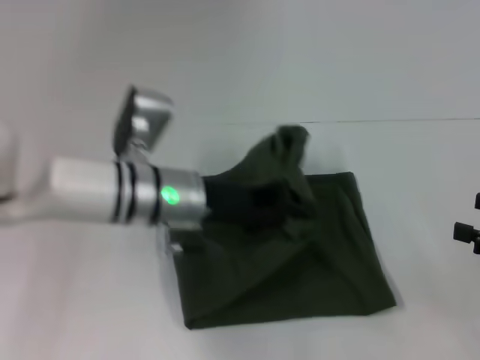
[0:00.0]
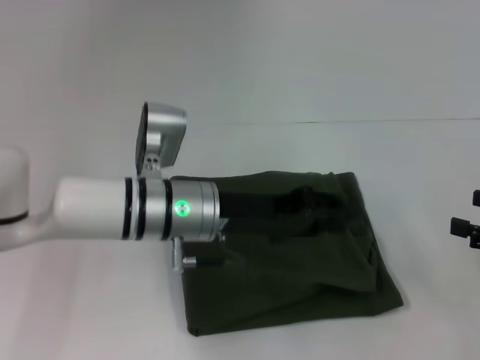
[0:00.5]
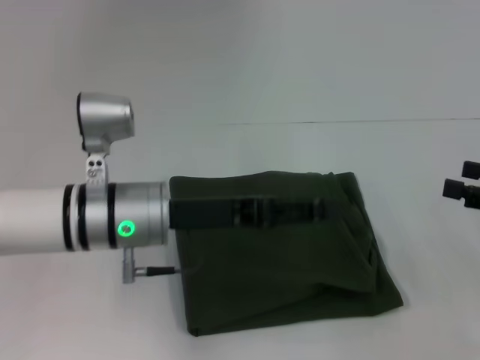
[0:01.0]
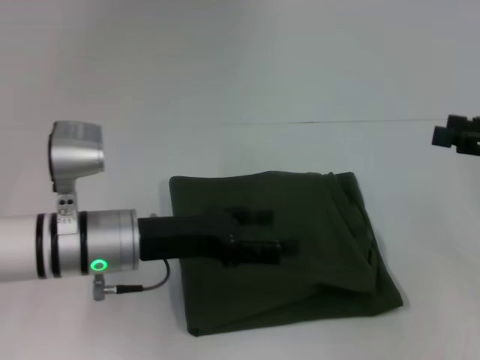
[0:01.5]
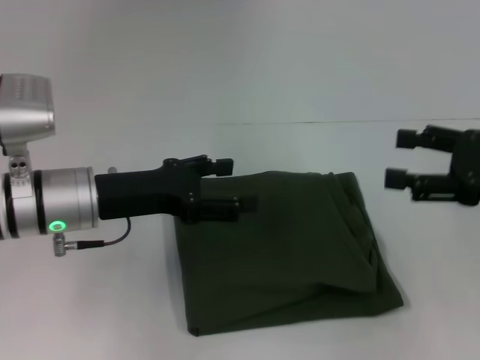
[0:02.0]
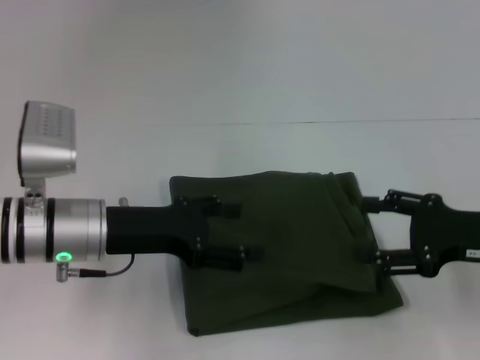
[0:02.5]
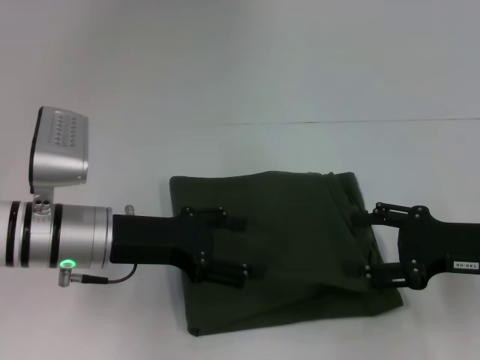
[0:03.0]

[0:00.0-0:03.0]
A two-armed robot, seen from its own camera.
0:00.0 to 0:01.5: The right gripper heads upward and forward, covering approximately 10 cm, while the left gripper heads to the left, covering roughly 5 cm, and opens.
0:01.5 to 0:03.0: The right gripper travels to the left and downward by some 10 cm.

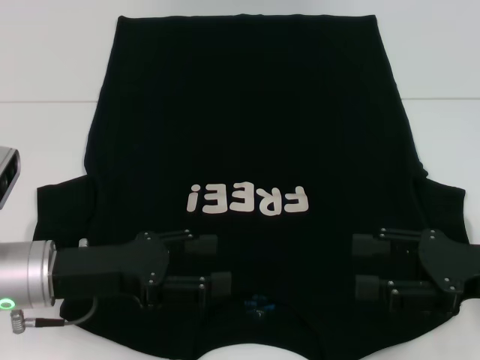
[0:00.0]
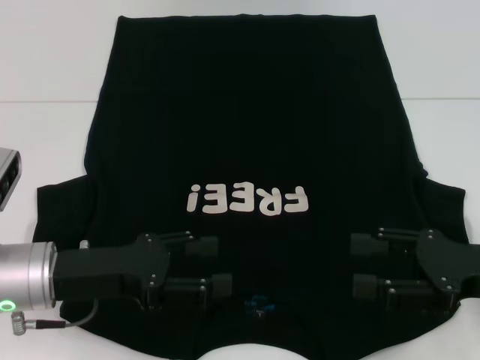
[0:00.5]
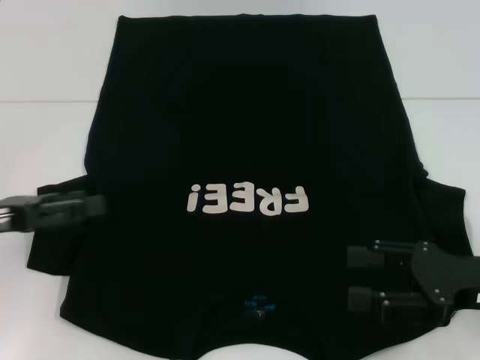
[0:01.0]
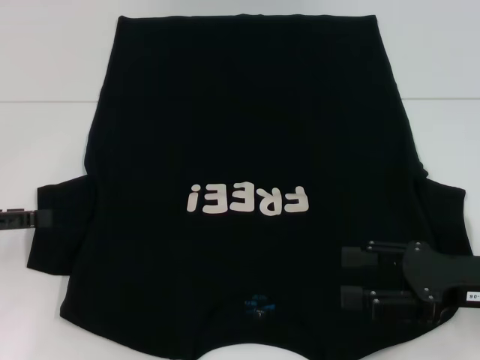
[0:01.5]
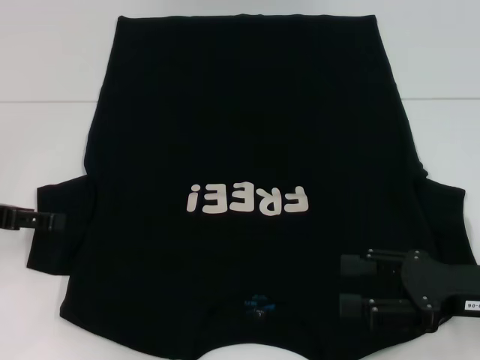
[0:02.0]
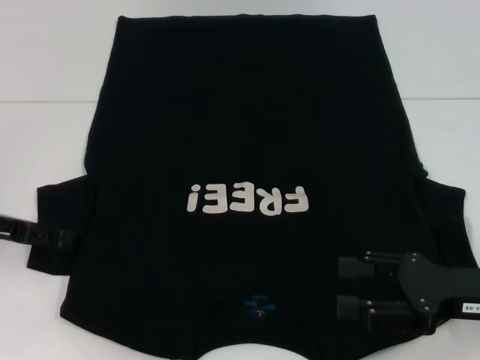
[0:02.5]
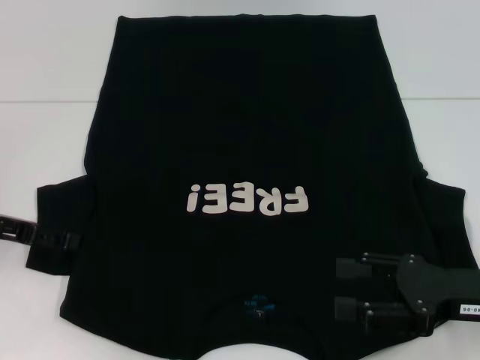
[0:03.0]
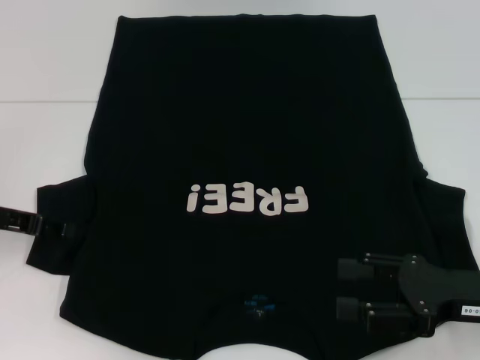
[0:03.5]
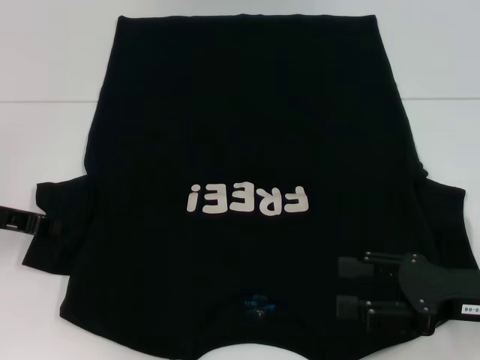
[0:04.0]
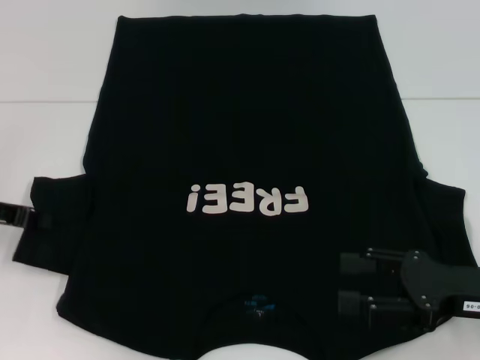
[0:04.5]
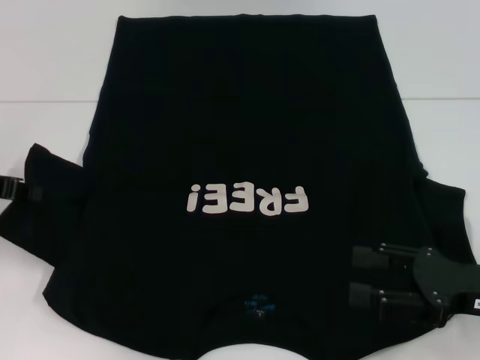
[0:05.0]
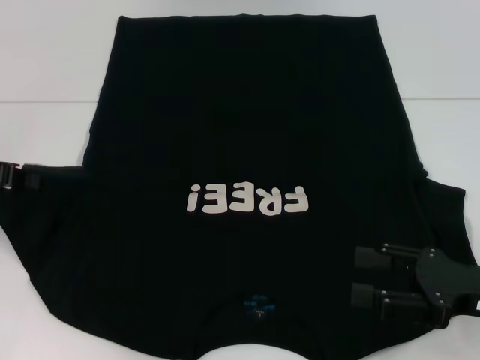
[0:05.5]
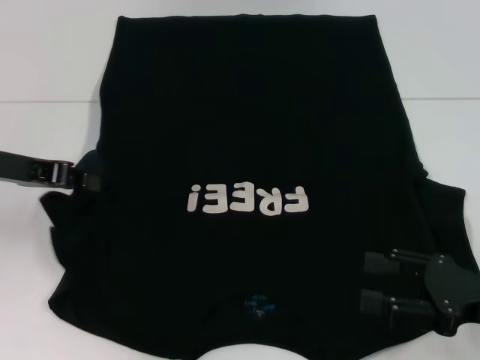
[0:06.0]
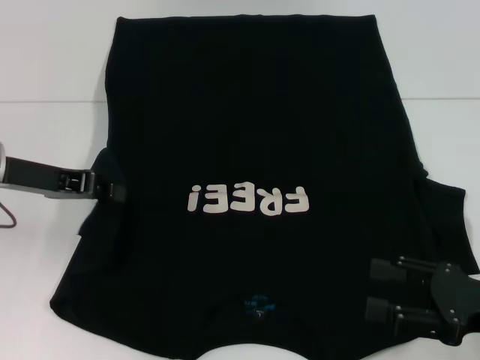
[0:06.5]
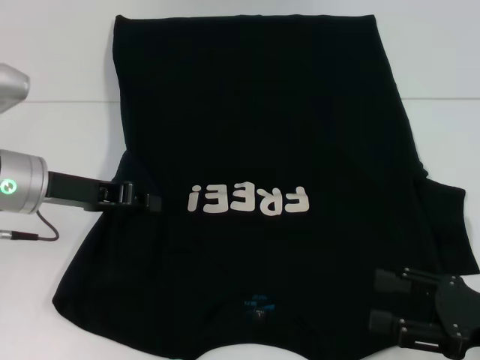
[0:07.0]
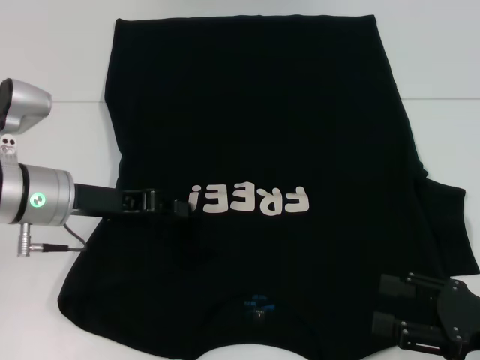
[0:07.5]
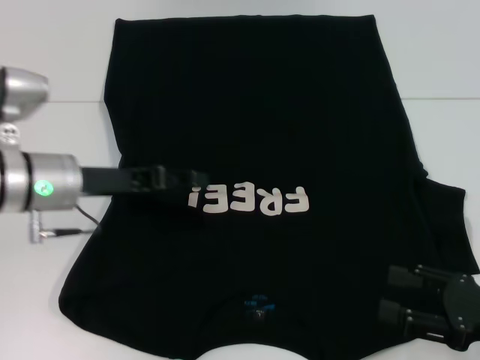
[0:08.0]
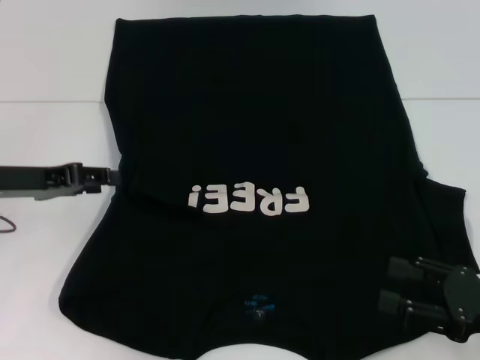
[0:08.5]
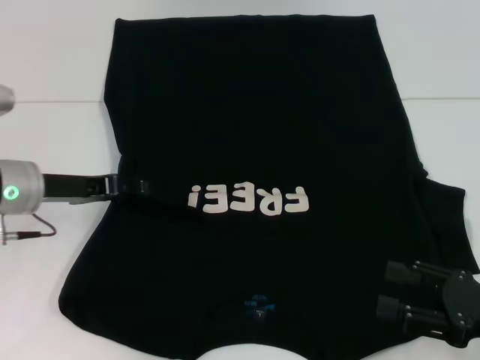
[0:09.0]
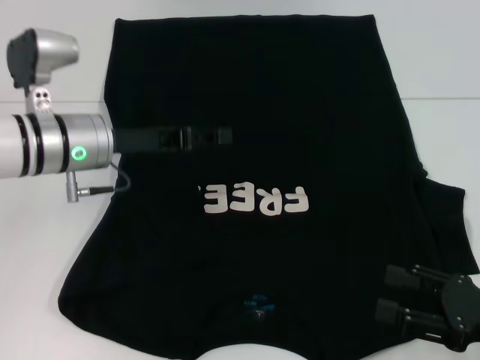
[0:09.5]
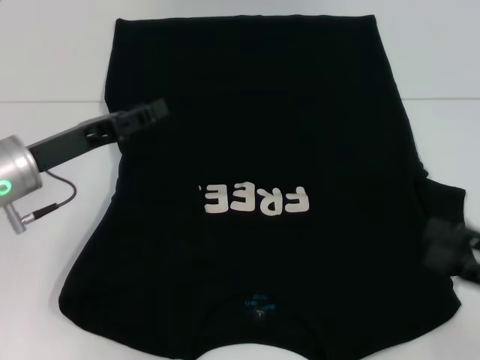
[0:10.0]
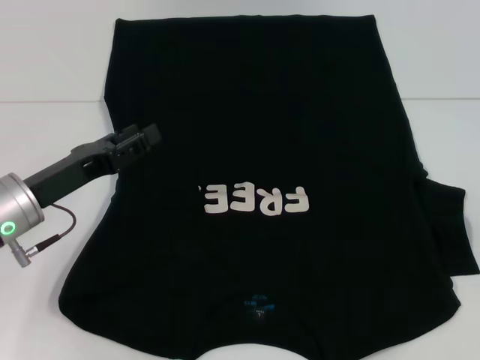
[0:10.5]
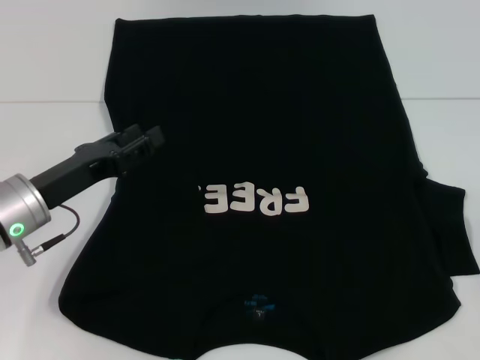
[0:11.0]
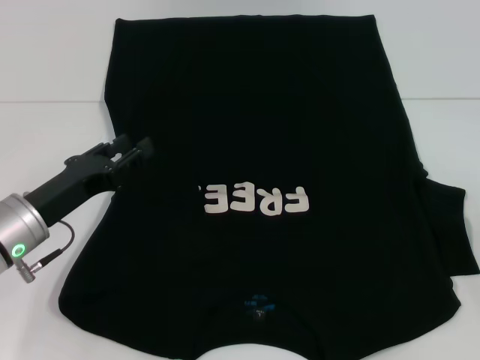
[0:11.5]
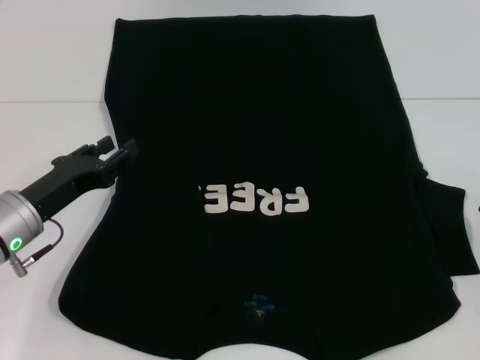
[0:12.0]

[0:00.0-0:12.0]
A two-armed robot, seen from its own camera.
Step, 0:00.0 to 0:07.0: Fold the bottom left sleeve with your left hand.
0:00.0 to 0:02.0: The left gripper goes roughly 15 cm to the left and forward.
0:04.0 to 0:06.0: The left gripper is displaced upward by approximately 5 cm.
0:06.0 to 0:08.0: The left gripper goes approximately 10 cm to the right, and opens up.
0:08.0 to 0:10.0: The left gripper goes left and right, roughly 10 cm each way, reversing 2 times; the right gripper ends up about 5 cm from where it was.
0:10.0 to 0:12.0: The left gripper shifts roughly 5 cm downward. Meanwhile the right gripper moves to the right and forward, approximately 10 cm.

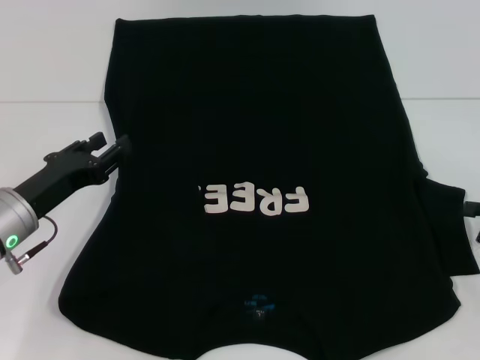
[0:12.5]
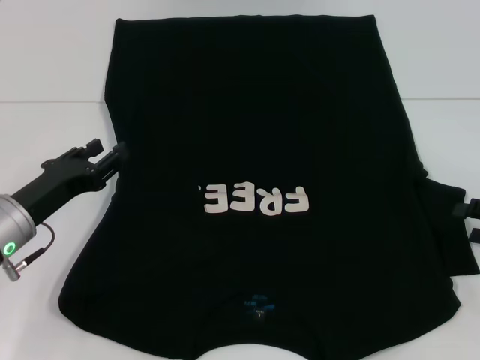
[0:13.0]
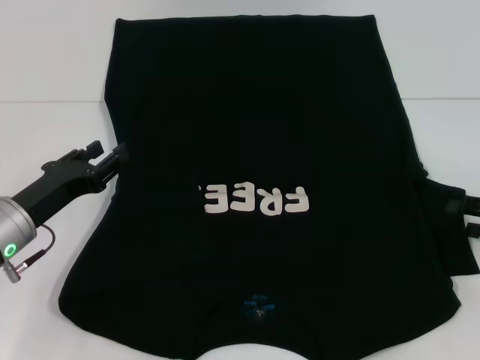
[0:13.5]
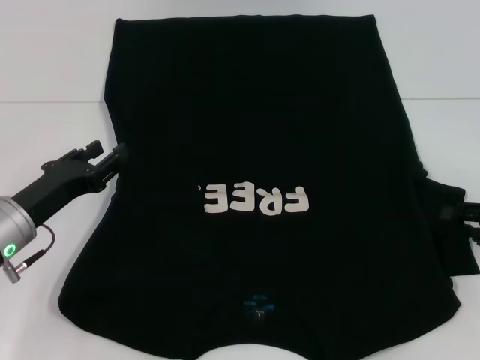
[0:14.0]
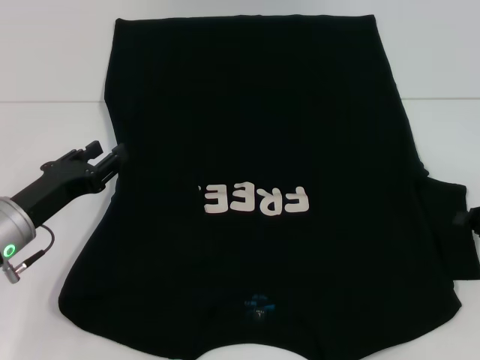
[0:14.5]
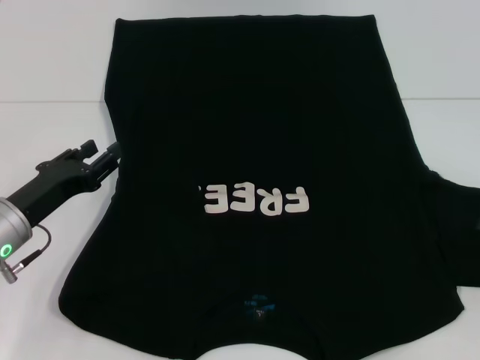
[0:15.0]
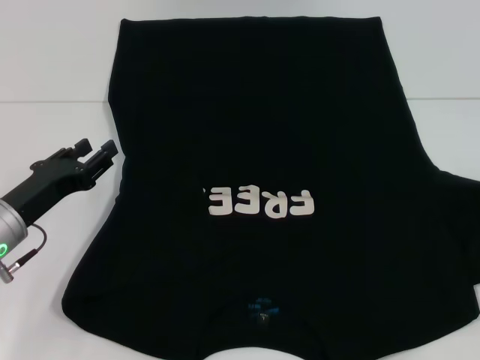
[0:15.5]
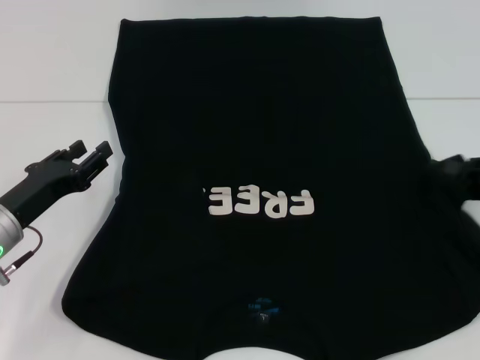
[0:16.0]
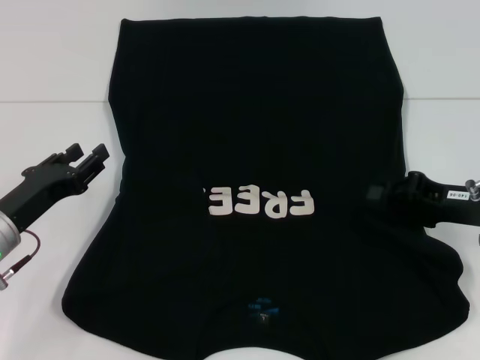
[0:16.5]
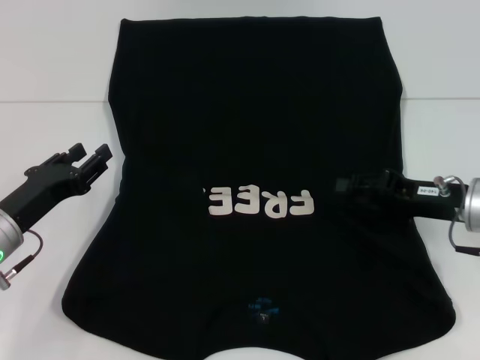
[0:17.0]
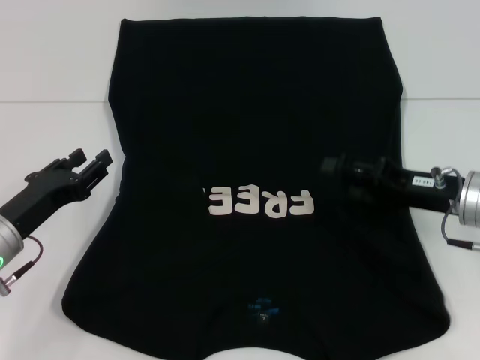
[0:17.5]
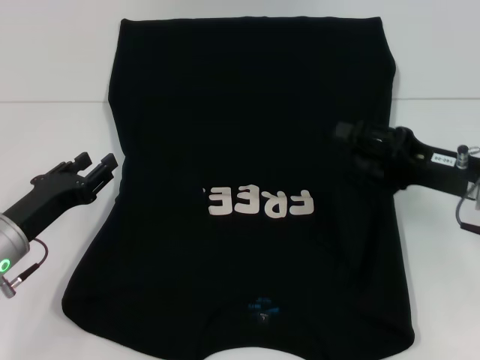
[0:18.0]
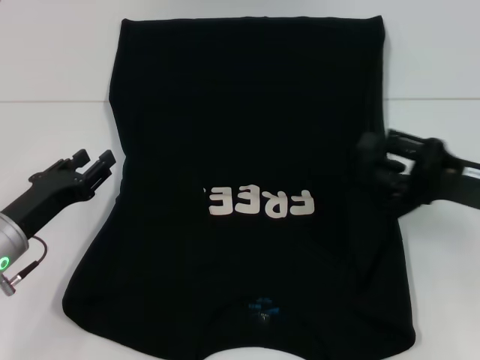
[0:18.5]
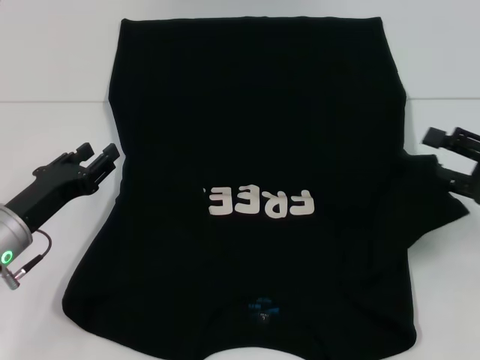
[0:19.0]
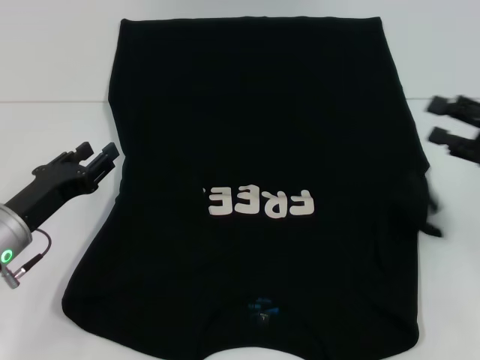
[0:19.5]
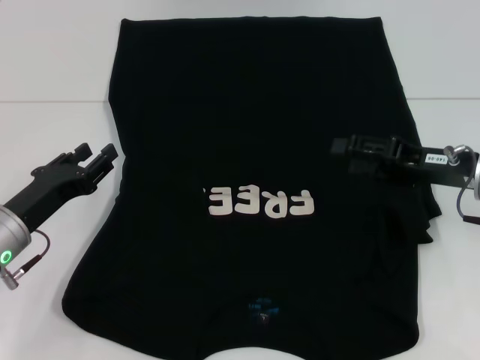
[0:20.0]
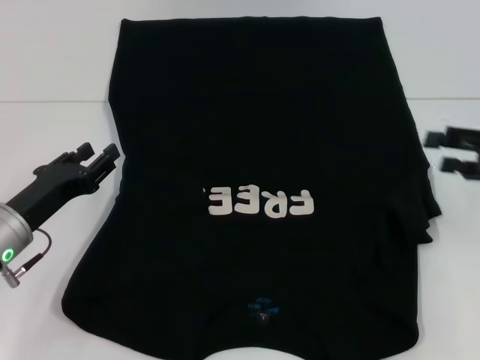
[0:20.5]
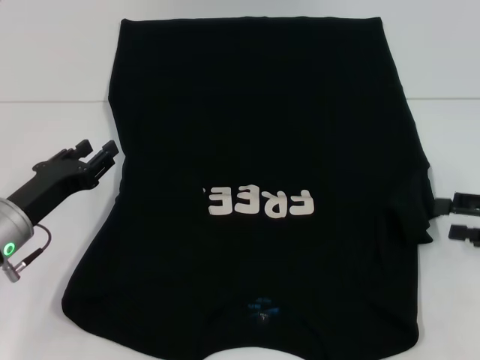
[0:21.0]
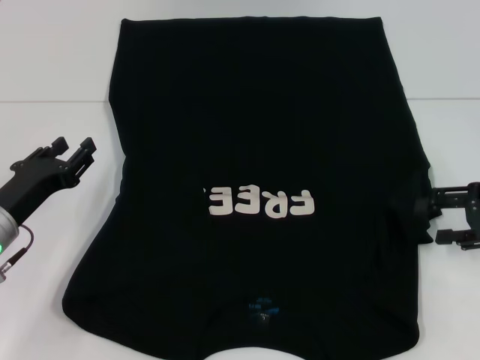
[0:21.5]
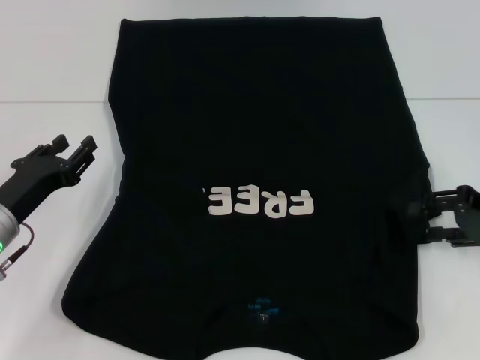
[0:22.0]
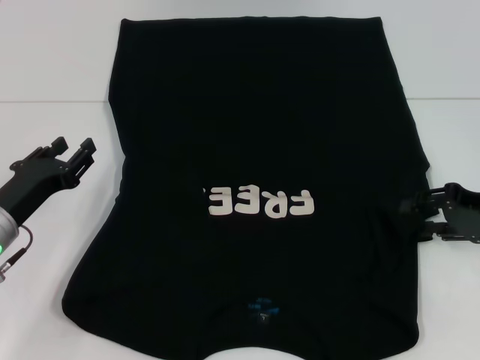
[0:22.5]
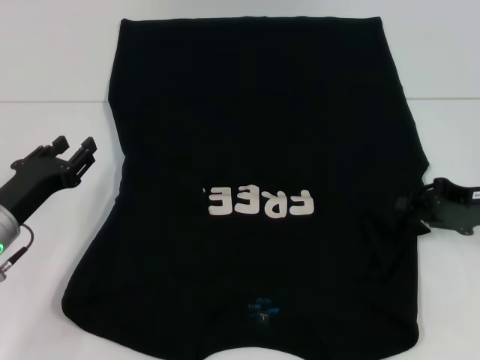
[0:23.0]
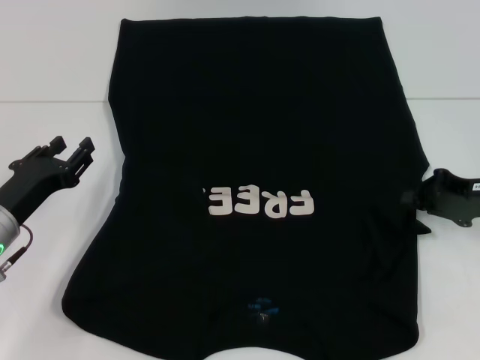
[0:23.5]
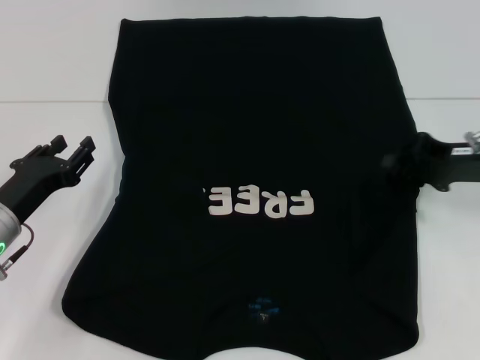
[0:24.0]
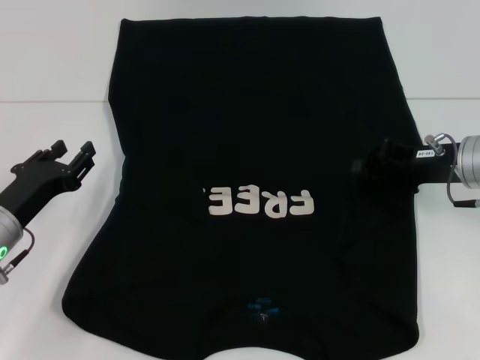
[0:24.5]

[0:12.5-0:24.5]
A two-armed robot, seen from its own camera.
0:12.5 to 0:14.5: The right gripper closes up.
0:14.5 to 0:16.5: The right gripper shifts about 10 cm to the left.
0:16.5 to 0:18.5: The right gripper opens up.
0:18.5 to 0:20.5: The right gripper goes left and right, approximately 10 cm each way, reversing 2 times.
0:22.5 to 0:24.5: The right gripper is displaced to the left by about 5 cm, and closes up.
